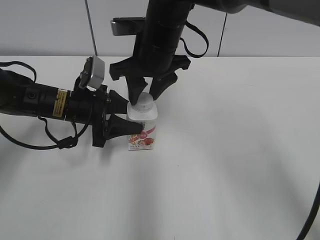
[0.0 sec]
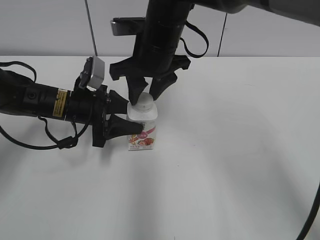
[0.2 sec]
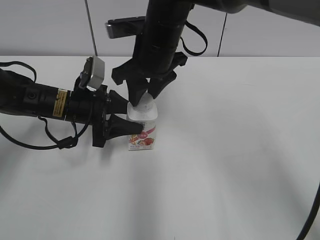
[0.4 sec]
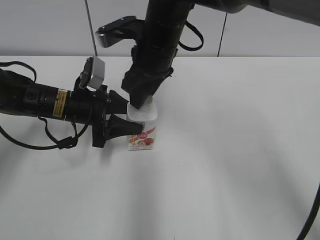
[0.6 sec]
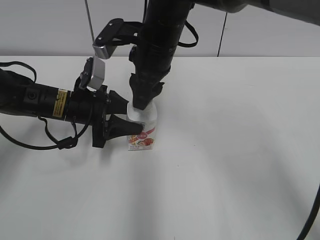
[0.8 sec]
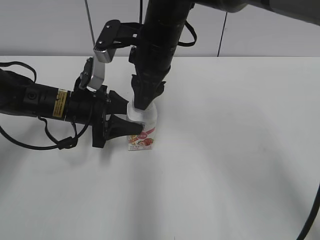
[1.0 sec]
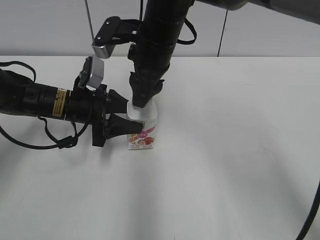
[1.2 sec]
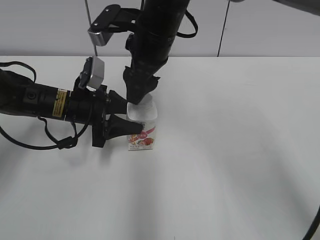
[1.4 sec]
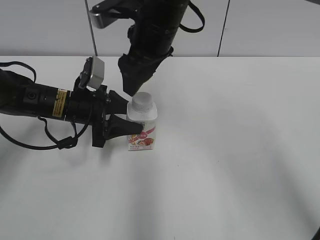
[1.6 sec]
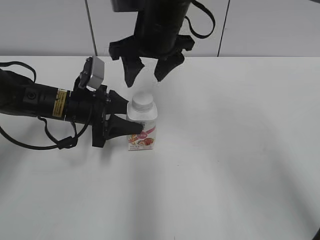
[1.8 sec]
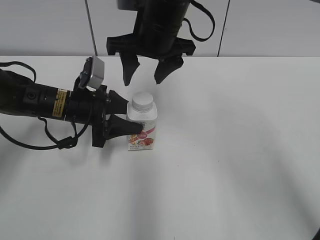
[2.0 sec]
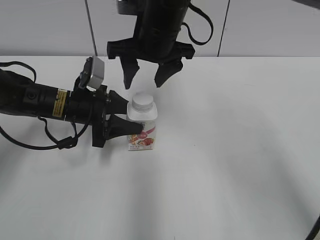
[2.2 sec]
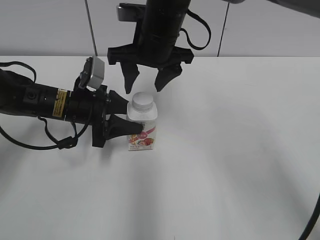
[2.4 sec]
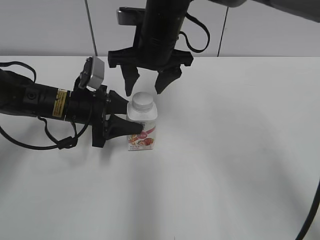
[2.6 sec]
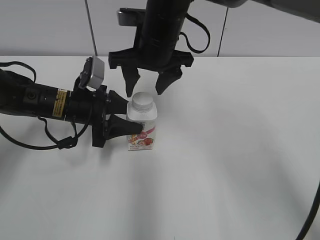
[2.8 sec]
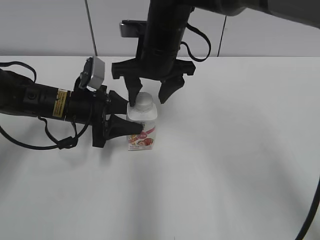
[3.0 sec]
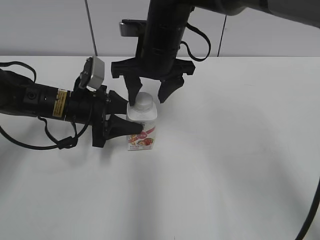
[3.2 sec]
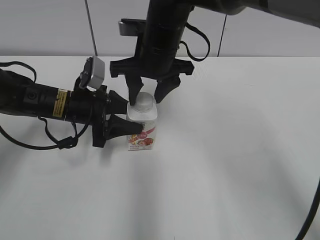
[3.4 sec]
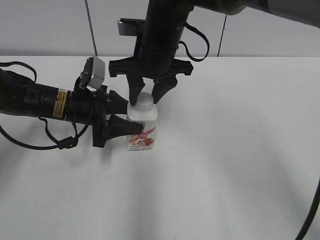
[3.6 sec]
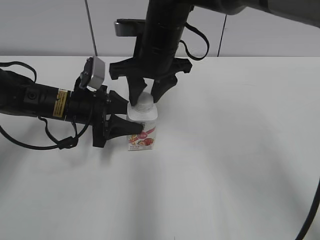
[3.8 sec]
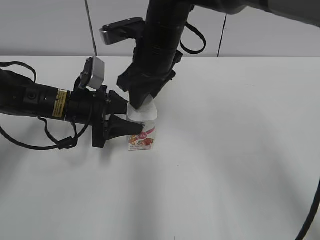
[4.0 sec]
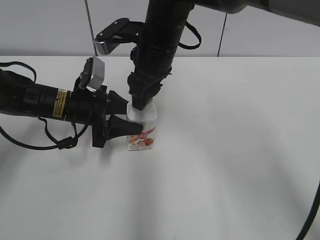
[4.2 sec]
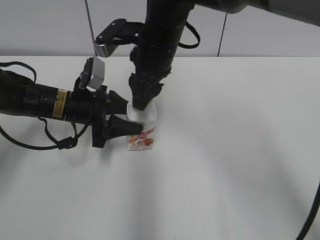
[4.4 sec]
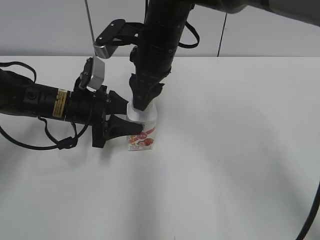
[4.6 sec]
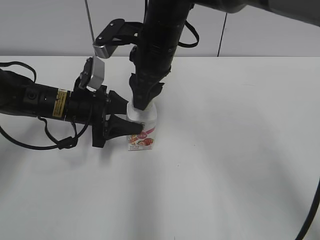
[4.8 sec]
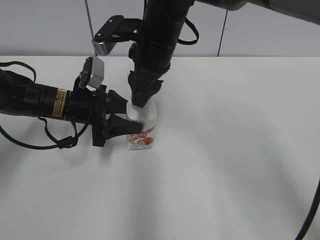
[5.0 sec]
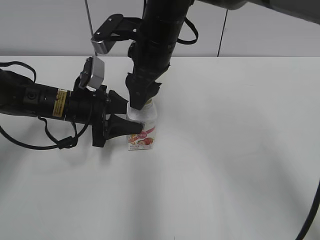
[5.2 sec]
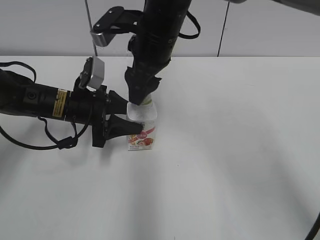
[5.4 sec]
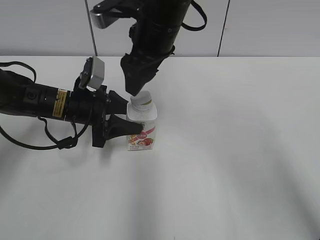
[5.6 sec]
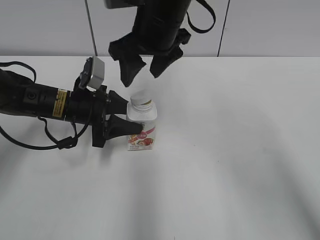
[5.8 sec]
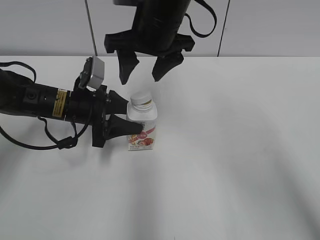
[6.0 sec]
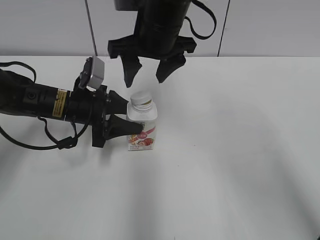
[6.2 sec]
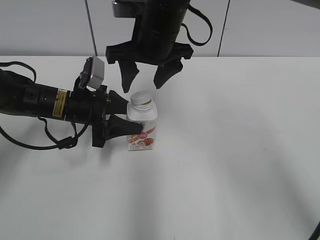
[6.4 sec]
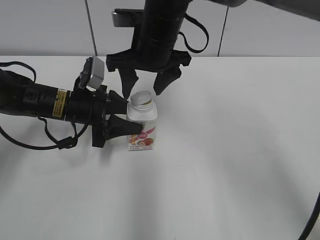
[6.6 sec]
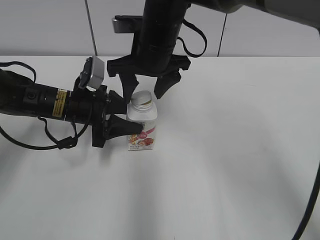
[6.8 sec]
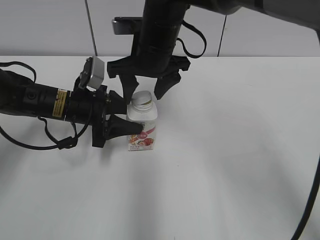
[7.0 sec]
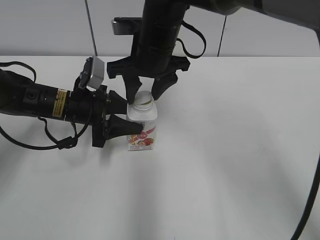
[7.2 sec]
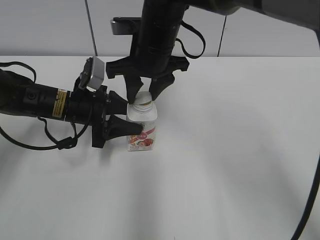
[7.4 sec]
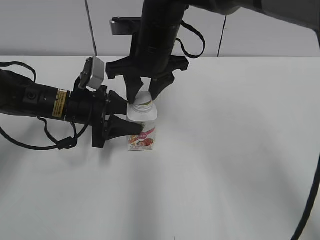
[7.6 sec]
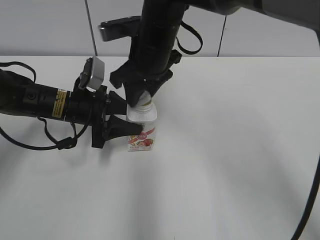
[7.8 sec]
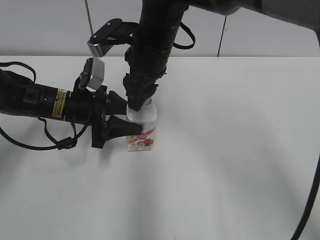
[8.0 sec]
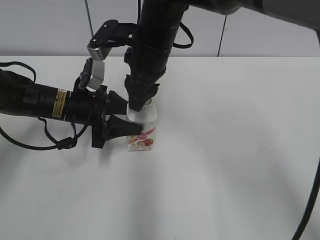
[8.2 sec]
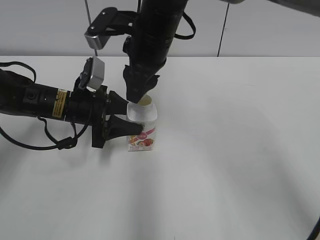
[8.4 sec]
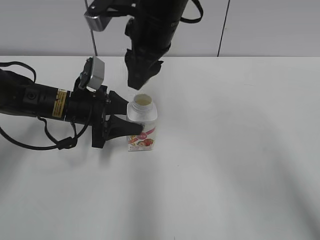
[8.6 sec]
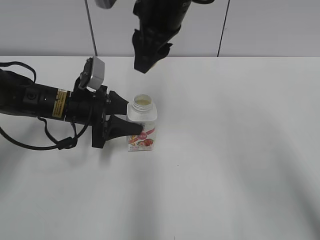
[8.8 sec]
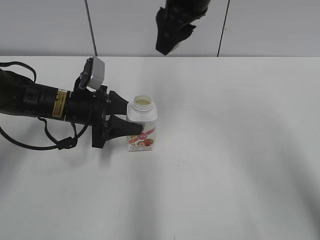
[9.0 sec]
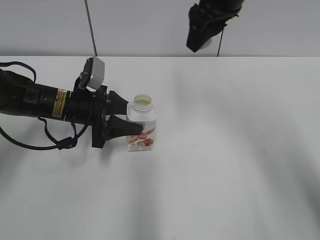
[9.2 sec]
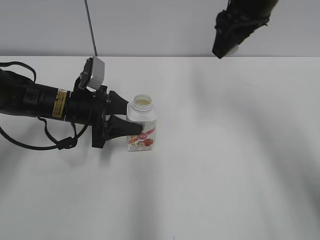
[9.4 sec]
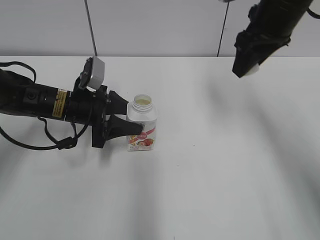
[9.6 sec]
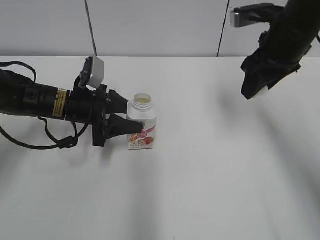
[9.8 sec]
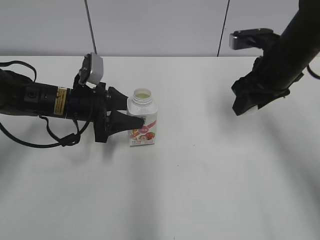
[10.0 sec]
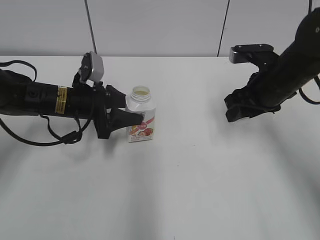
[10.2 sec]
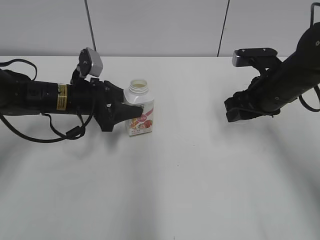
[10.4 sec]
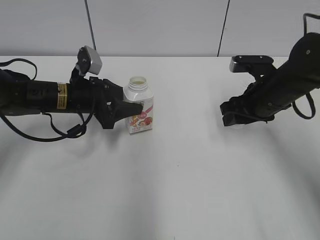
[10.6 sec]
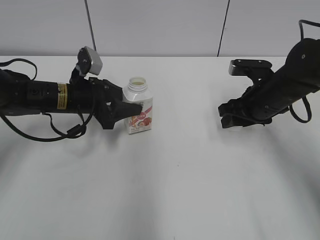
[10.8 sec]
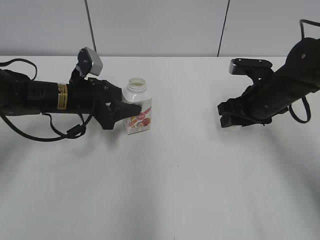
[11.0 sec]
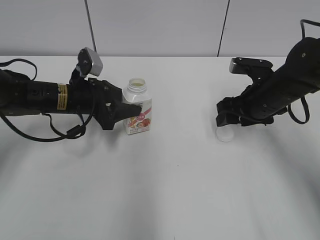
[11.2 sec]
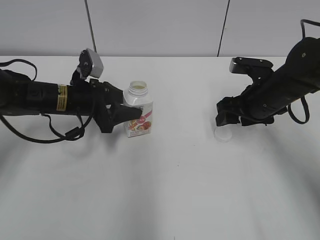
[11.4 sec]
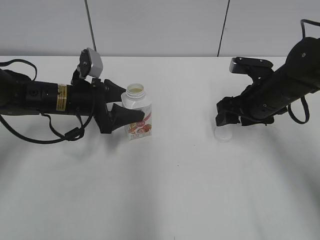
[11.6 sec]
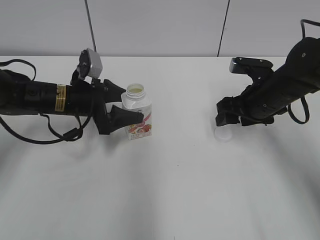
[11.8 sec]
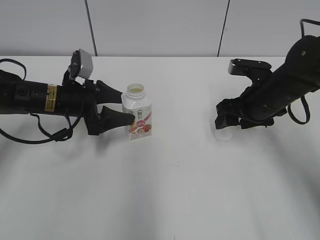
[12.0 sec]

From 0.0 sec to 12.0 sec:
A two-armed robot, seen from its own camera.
Step, from 8.4 sec to 11.0 sec: Move the Yili Changqing from bottom to top.
Step, from 11.2 sec to 11.8 sec: Place the Yili Changqing with the left hand.
From 0.0 sec to 1.6 sec: The right gripper opens up.
From 3.0 sec to 4.4 sec: The right gripper closes its fingers.
From 4.4 sec to 6.0 sec: The right gripper opens up.
From 6.0 sec to 7.6 sec: The right gripper closes its fingers.
From 7.6 sec to 9.0 sec: The right gripper travels upward and to the right by some 10 cm.
From 9.0 sec to 10.4 sec: The right gripper goes some 20 cm downward and to the right.
From 10.4 sec to 12.0 sec: The right gripper opens, while the left gripper opens its fingers.

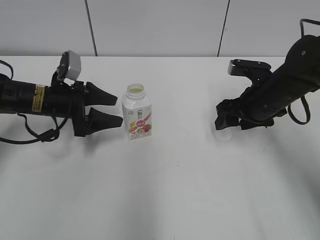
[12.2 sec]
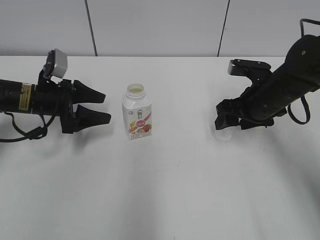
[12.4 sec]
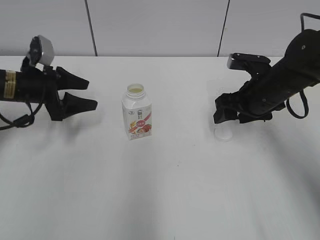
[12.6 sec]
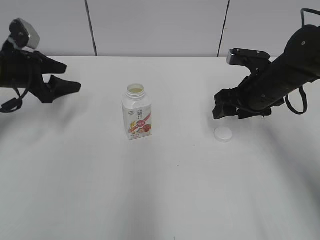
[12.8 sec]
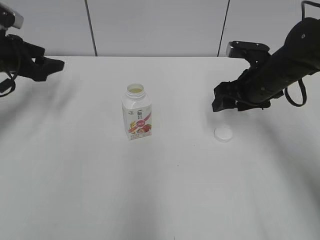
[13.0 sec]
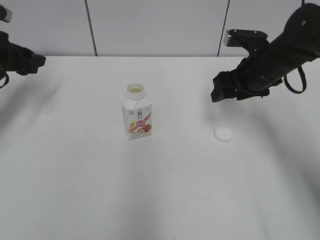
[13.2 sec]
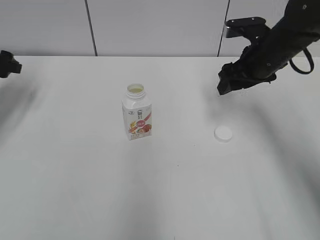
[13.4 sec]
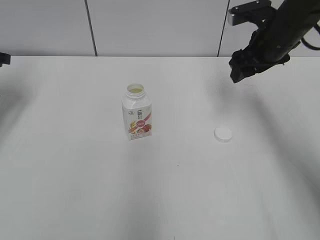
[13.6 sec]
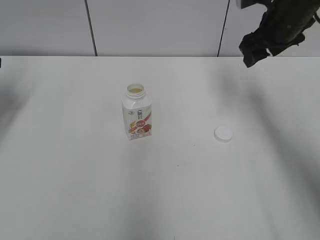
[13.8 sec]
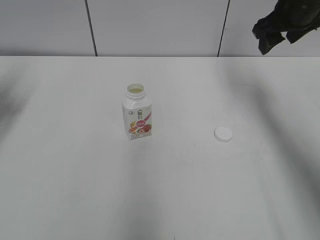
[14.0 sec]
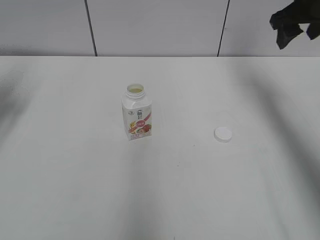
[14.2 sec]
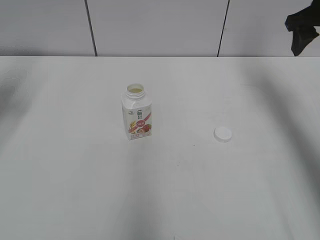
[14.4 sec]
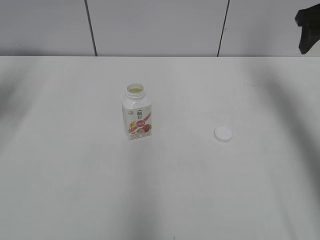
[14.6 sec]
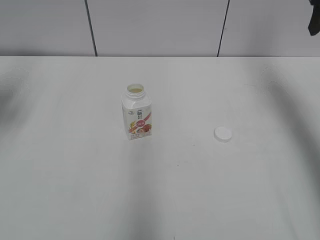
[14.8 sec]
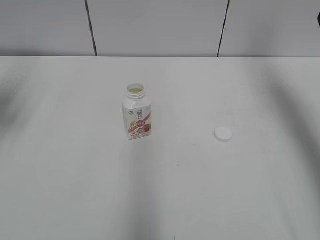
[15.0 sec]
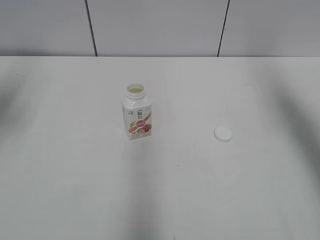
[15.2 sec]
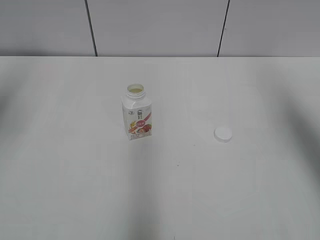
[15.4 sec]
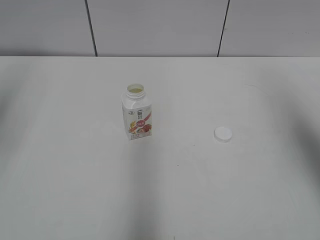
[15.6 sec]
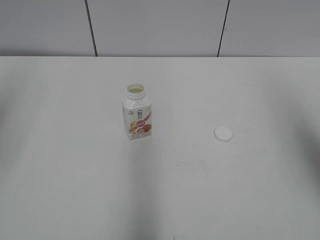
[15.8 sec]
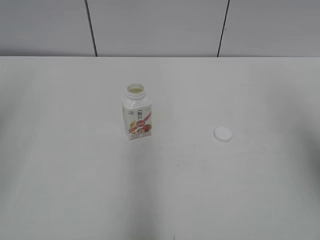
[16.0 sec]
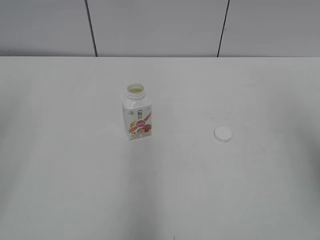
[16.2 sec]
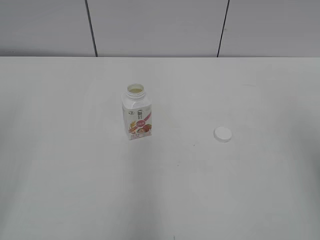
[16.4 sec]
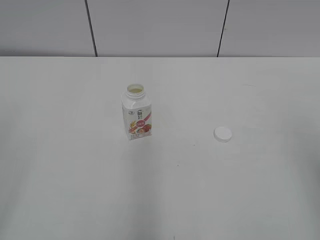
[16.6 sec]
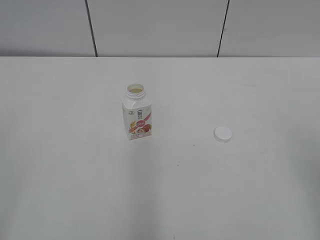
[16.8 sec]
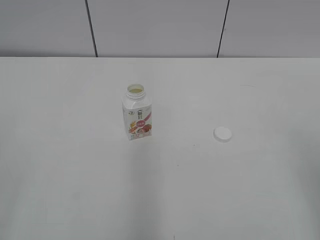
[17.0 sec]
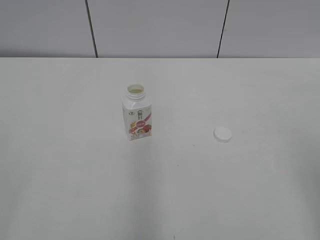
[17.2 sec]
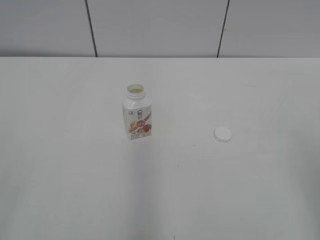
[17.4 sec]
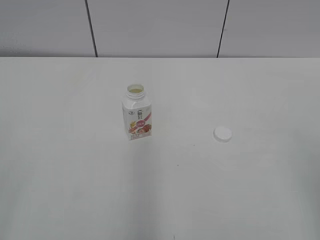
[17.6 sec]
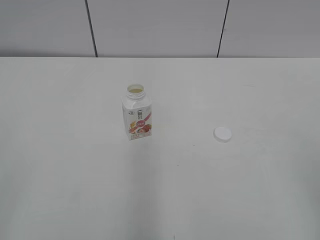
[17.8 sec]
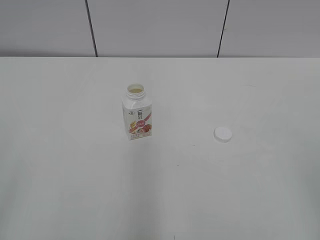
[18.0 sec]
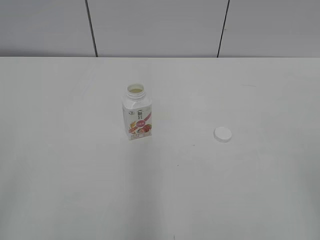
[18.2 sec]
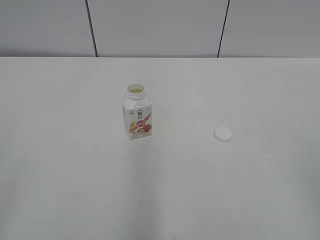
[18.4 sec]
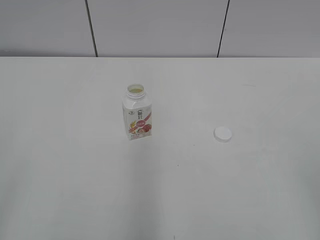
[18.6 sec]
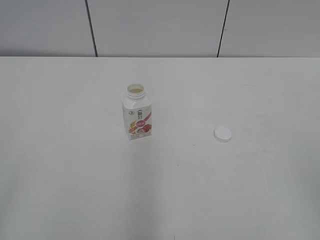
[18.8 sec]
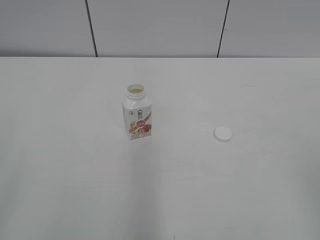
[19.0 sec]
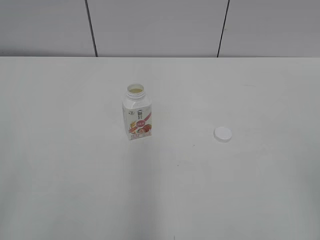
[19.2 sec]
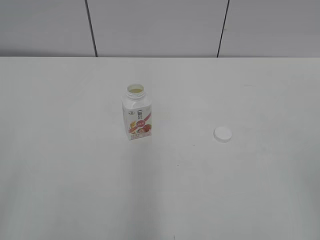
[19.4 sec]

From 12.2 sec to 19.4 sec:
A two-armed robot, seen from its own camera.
From 12.2 sec to 13.6 sec: The right gripper goes some 10 cm upward and forward, while the left gripper travels to the left and upward by about 20 cm, and closes.
From 13.6 sec to 15.0 sec: The right gripper travels upward and to the right by about 15 cm.
From 15.0 sec to 16.6 sec: The grippers both shift backward by approximately 30 cm.
From 18.0 sec to 19.4 sec: Both grippers stay about where they are.
